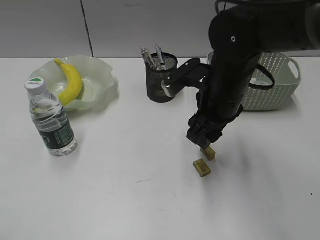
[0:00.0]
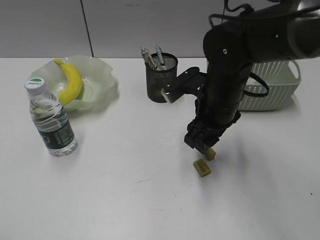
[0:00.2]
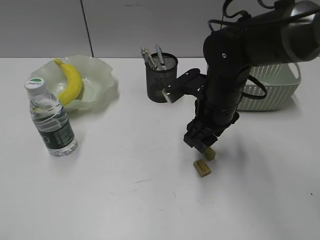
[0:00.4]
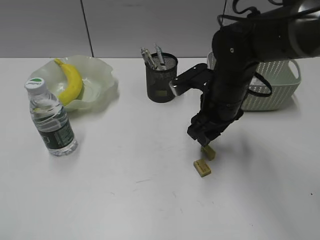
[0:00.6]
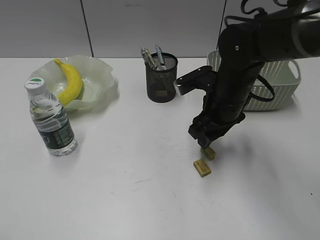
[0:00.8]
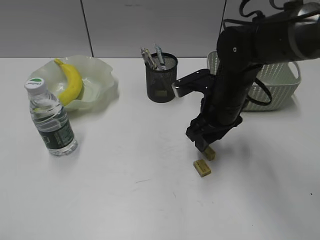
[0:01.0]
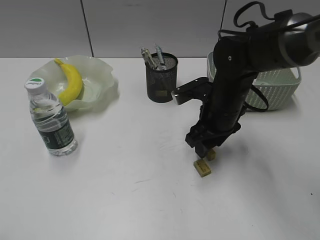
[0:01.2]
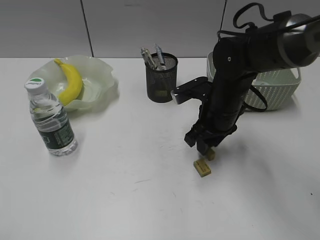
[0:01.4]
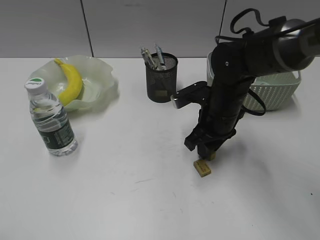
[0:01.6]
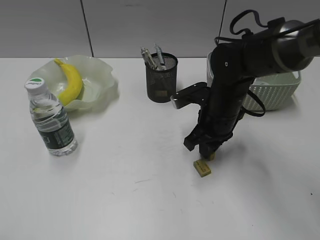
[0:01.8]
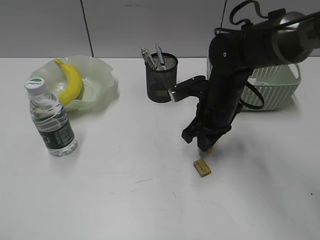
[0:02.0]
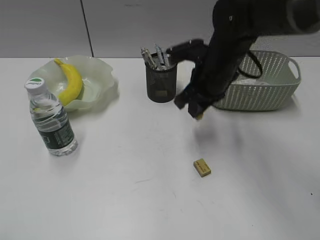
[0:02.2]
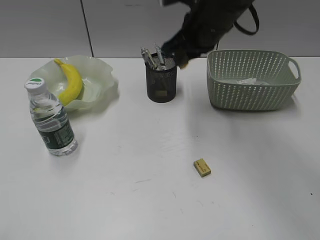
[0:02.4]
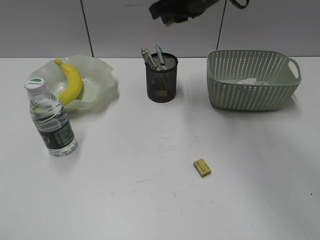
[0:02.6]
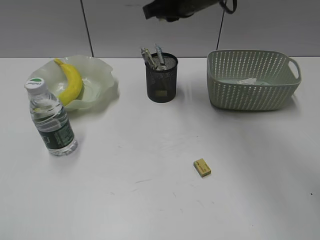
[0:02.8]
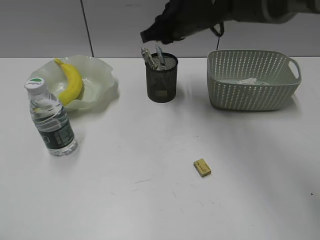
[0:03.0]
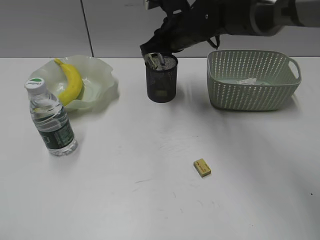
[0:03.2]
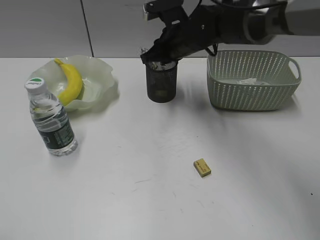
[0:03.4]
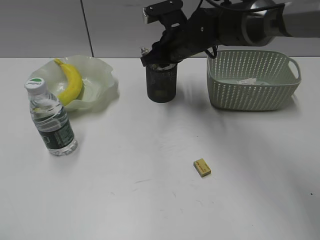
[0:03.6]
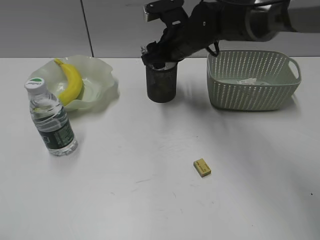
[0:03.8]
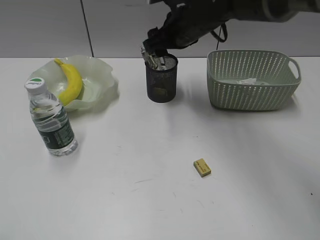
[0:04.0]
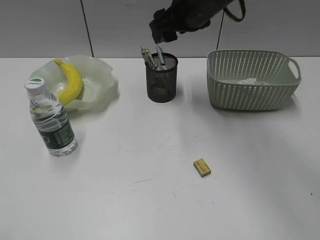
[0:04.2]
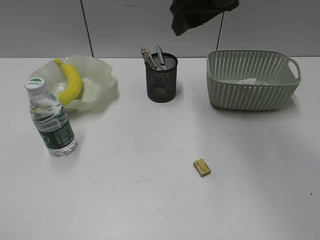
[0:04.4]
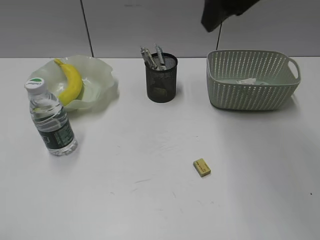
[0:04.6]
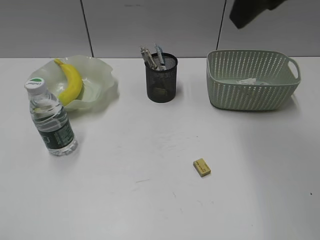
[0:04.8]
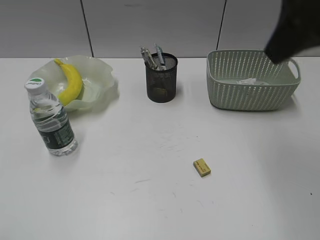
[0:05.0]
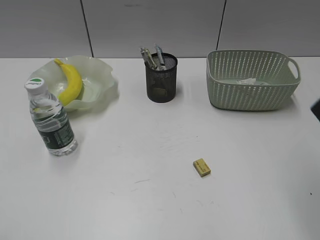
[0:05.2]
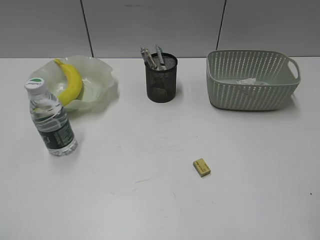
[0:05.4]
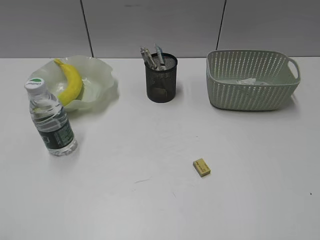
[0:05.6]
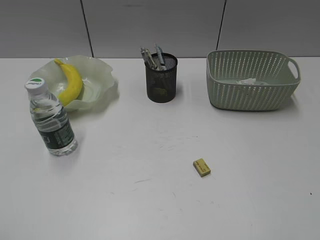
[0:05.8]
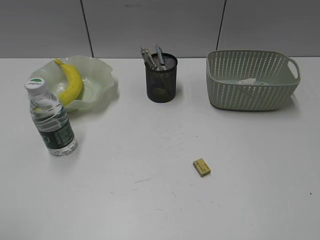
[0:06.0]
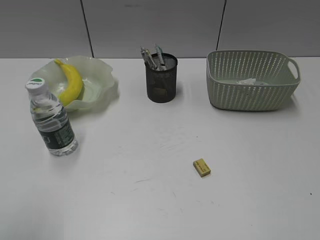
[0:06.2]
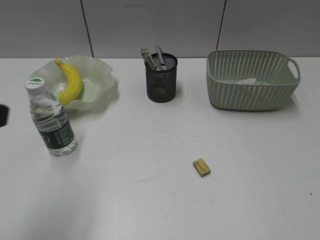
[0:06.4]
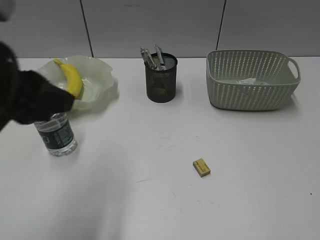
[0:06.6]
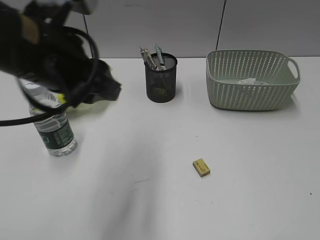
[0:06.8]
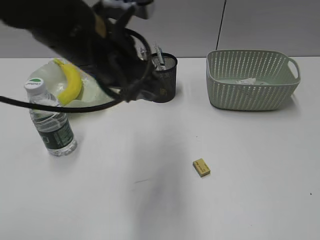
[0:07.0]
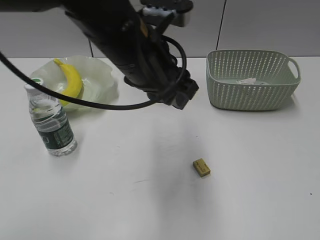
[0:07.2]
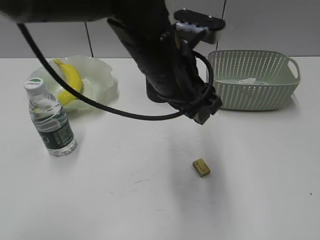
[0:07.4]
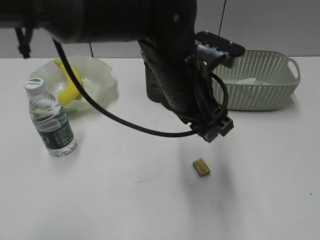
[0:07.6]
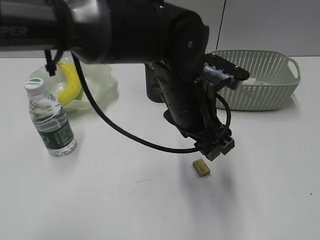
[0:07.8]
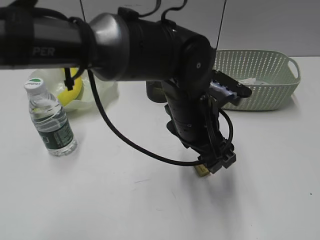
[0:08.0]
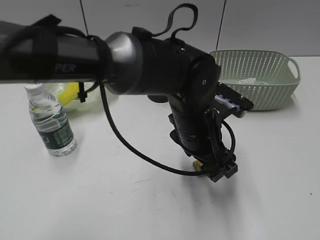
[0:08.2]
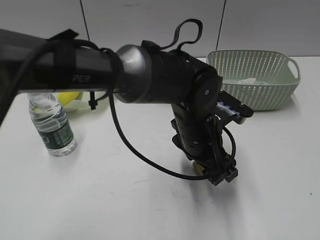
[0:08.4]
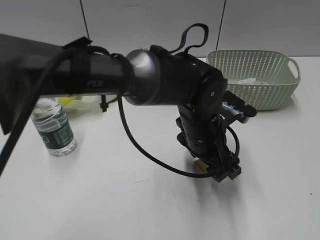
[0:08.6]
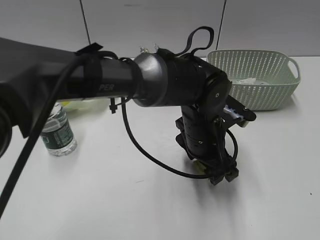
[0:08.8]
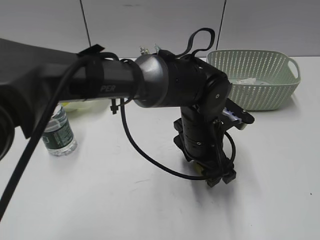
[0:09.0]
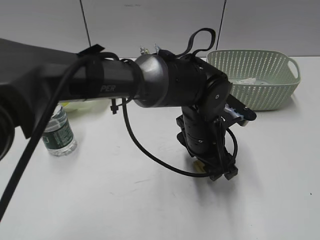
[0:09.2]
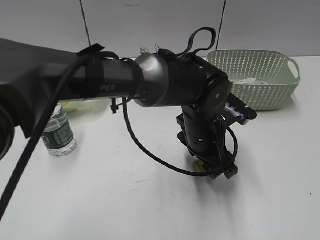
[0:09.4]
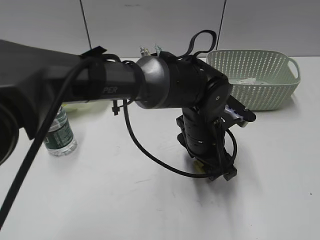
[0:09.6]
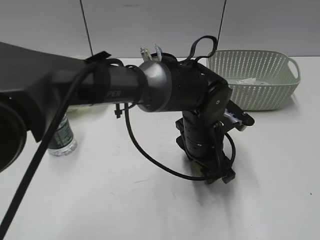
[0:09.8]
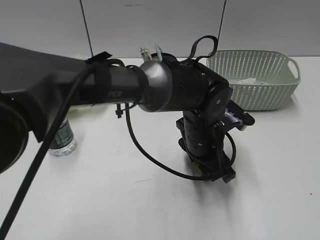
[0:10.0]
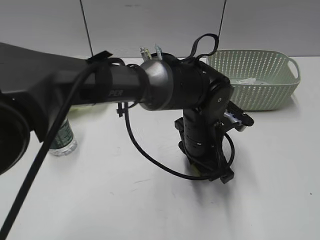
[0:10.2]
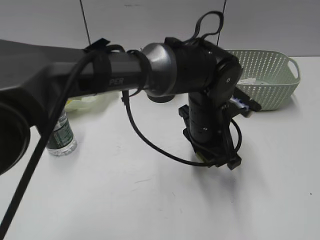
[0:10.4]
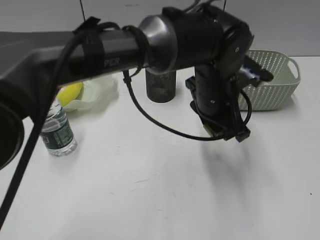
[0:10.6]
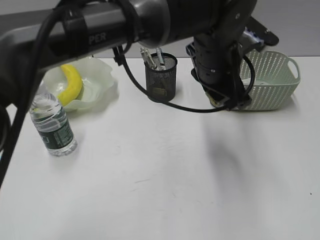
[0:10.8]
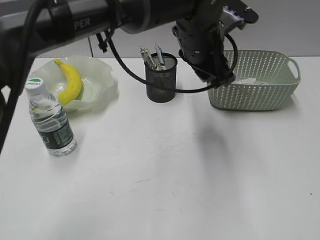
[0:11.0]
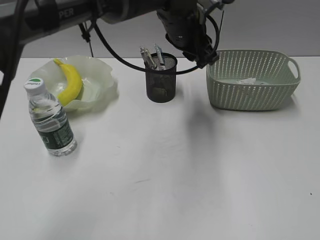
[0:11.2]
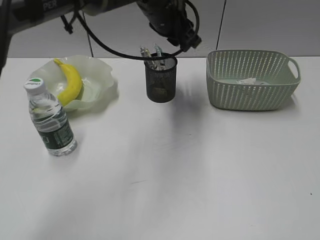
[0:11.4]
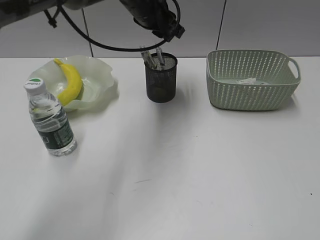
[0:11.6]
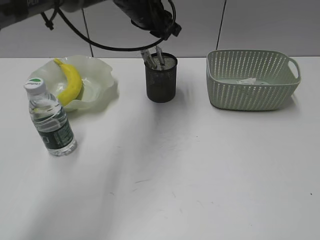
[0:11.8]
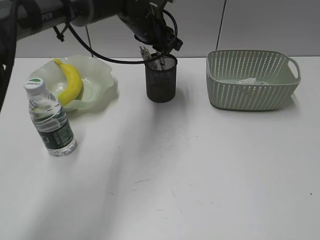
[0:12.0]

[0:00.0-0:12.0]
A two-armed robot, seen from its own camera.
Step, 0:02.0 to 0:03.8: Place the eraser in pen holder with right gripper.
Step, 0:04.0 to 0:10.0: Grasp the eraser with left gripper.
0:00.0 to 0:01.6: The right gripper shifts roughly 5 cm downward.
0:01.6 to 0:03.0: The right gripper is displaced upward, forward and to the left by approximately 15 cm.
0:03.0 to 0:04.4: The right gripper travels upward and backward by roughly 10 cm, and opens up.
0:04.4 to 0:06.0: The right gripper travels backward and to the right by approximately 40 cm.
0:06.0 to 0:07.6: The left gripper moves to the right and forward, approximately 40 cm.
0:07.6 to 0:09.0: The left gripper heads downward, covering roughly 10 cm.
0:09.0 to 0:10.4: The left gripper closes.
0:10.4 to 0:12.0: The left gripper heads forward, to the left and upward, covering about 25 cm.

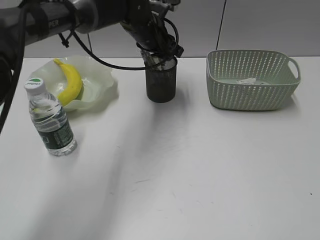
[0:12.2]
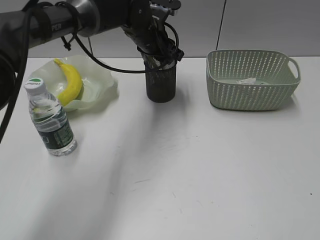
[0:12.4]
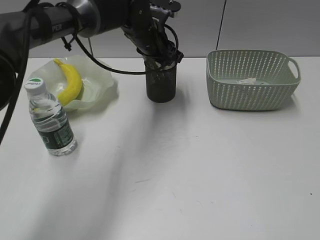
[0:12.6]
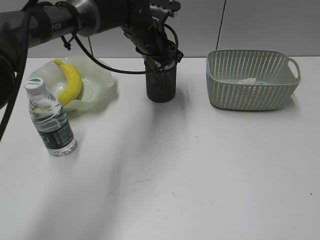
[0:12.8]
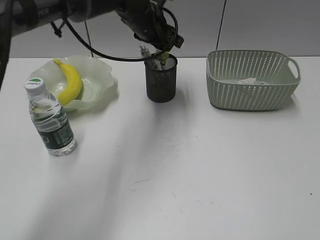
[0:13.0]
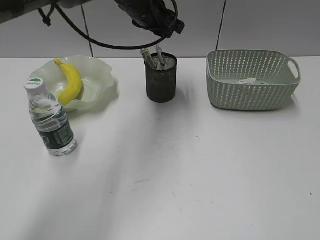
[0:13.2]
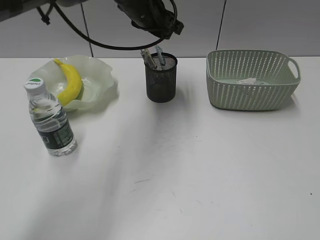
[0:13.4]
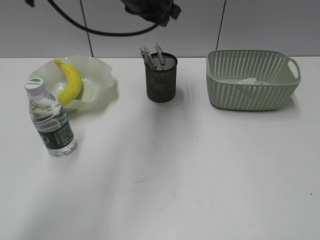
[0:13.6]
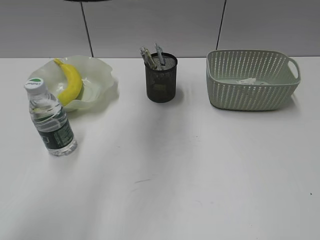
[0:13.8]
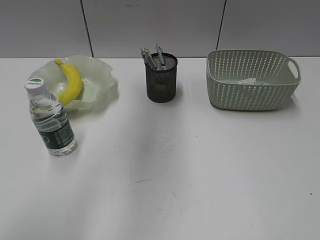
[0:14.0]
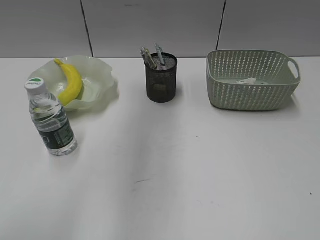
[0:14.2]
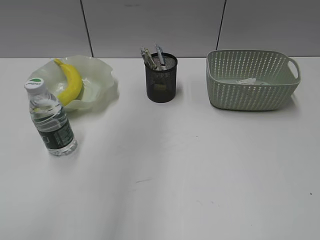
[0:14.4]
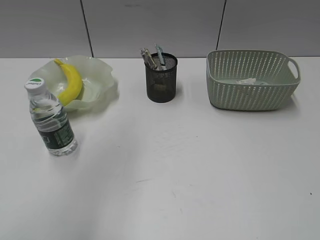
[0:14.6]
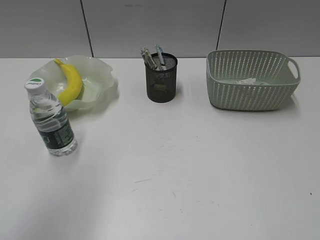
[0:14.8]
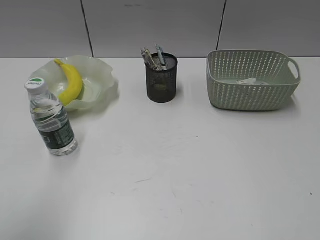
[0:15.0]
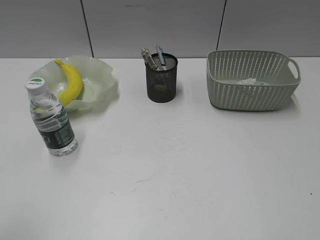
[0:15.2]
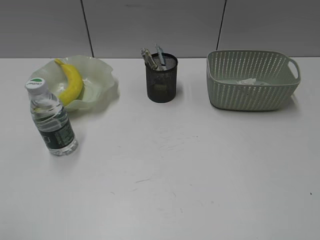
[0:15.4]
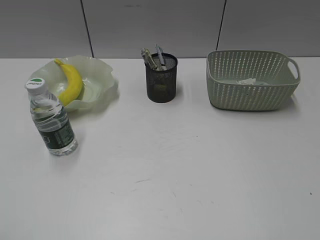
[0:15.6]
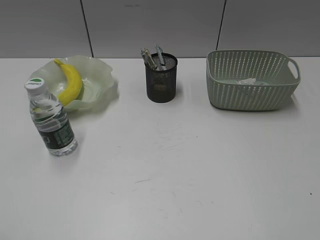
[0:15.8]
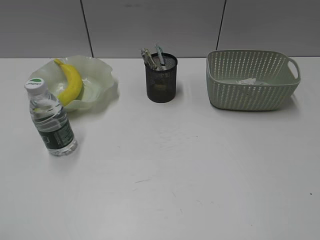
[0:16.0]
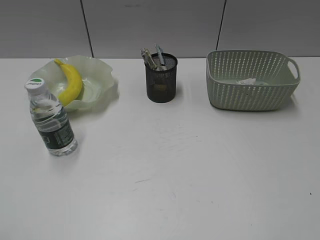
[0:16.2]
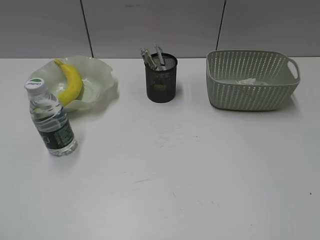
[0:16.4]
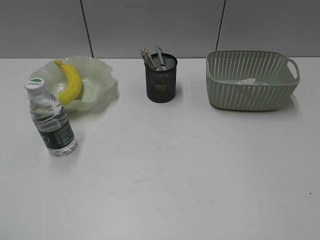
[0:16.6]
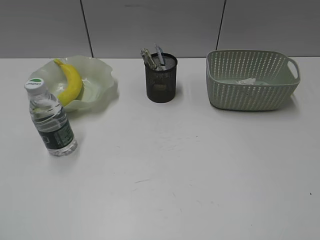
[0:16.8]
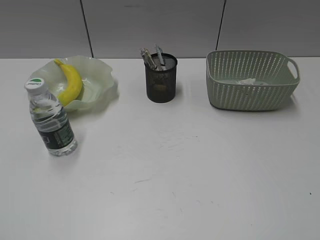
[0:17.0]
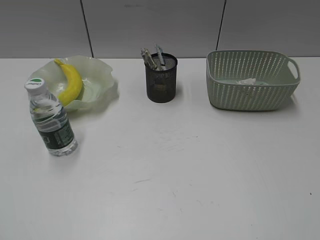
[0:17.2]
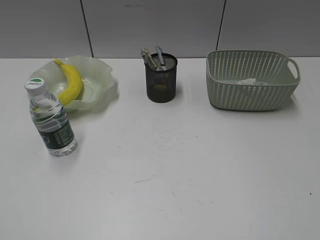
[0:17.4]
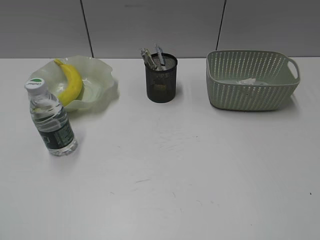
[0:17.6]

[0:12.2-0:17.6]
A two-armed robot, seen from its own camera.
0:12.2 to 0:13.6: The left gripper heads upward, covering roughly 10 cm.
0:13.6 to 0:15.0: The left gripper moves backward and to the left, about 40 cm.
